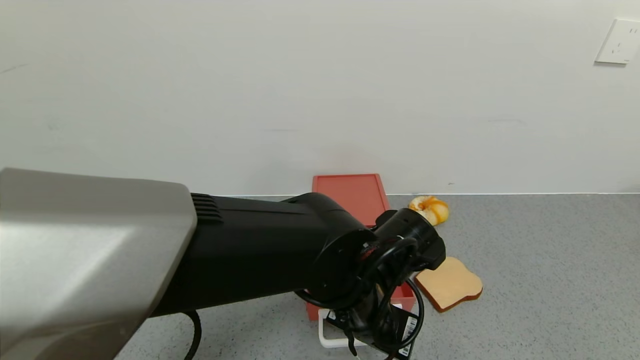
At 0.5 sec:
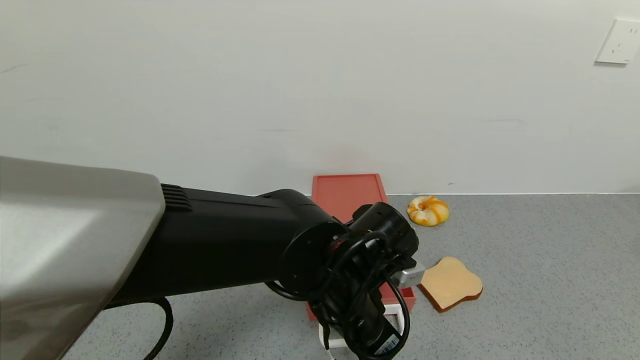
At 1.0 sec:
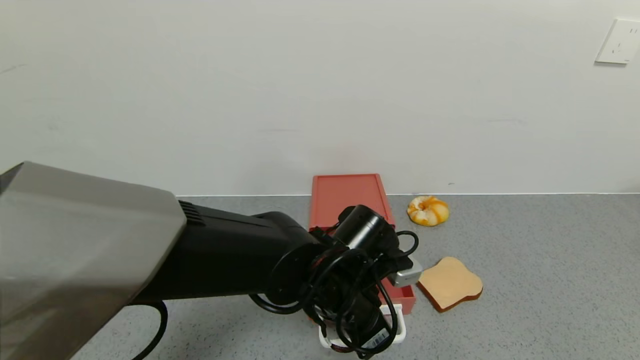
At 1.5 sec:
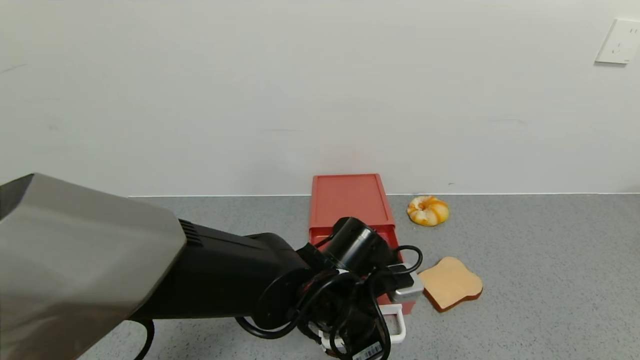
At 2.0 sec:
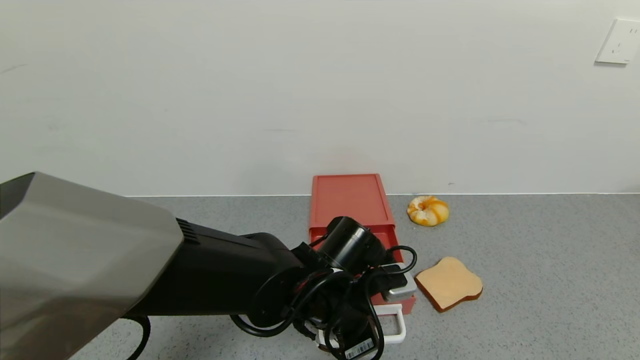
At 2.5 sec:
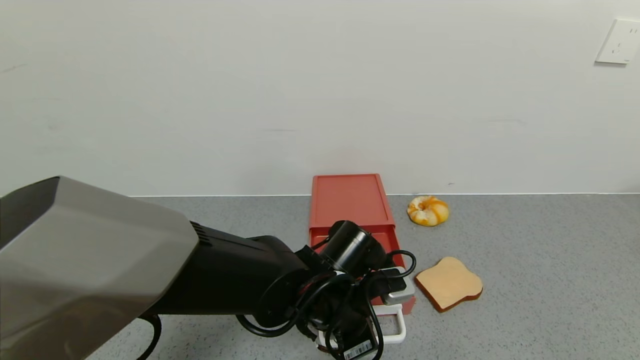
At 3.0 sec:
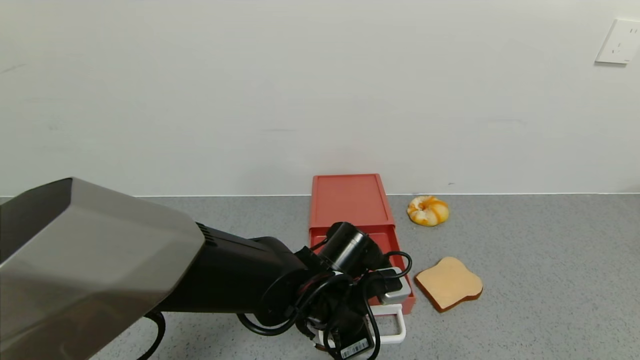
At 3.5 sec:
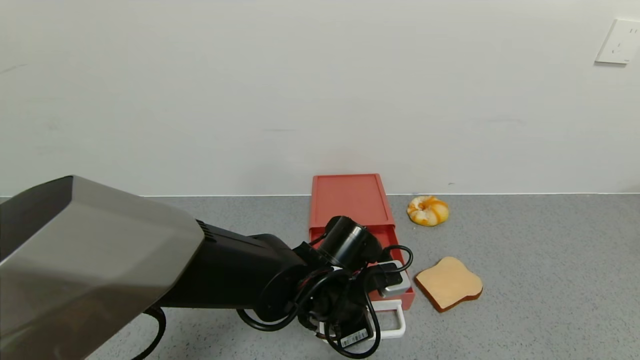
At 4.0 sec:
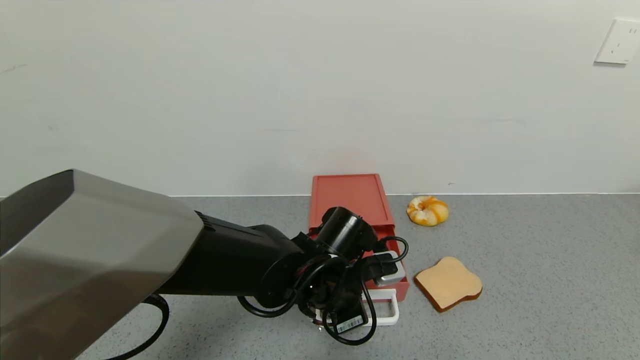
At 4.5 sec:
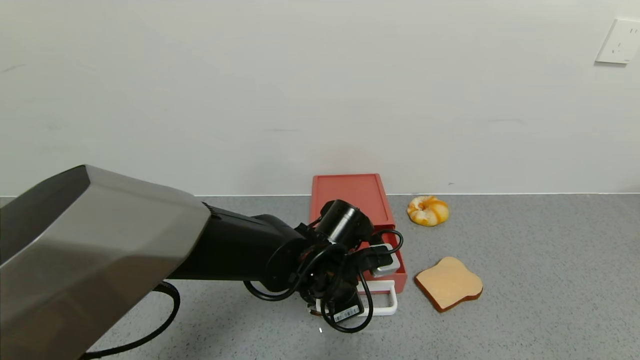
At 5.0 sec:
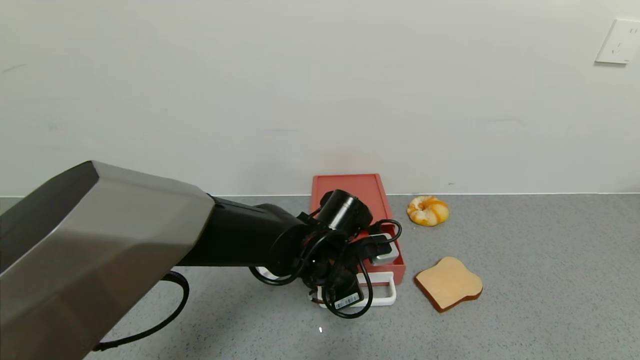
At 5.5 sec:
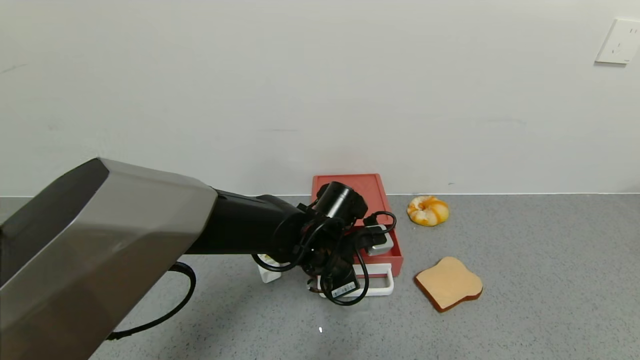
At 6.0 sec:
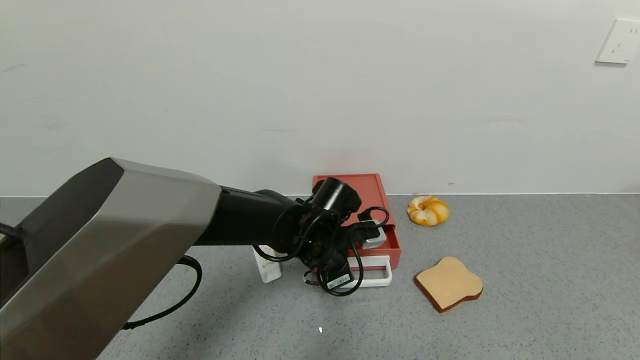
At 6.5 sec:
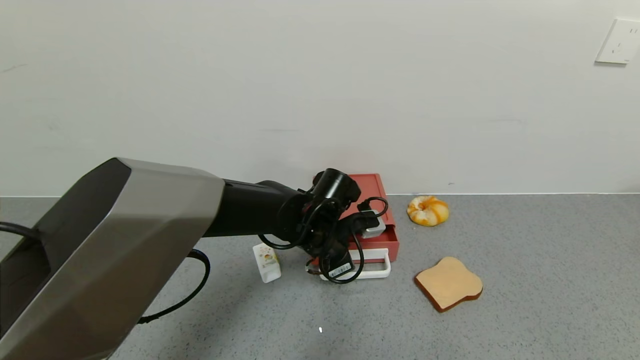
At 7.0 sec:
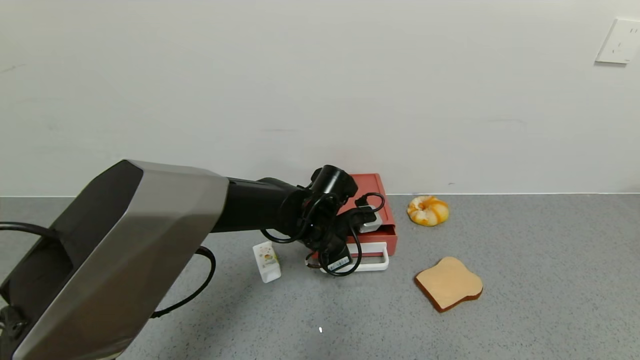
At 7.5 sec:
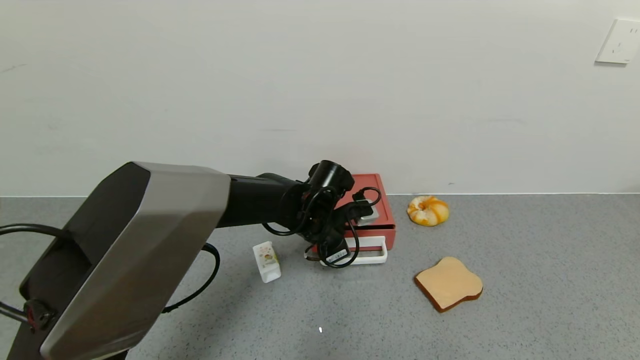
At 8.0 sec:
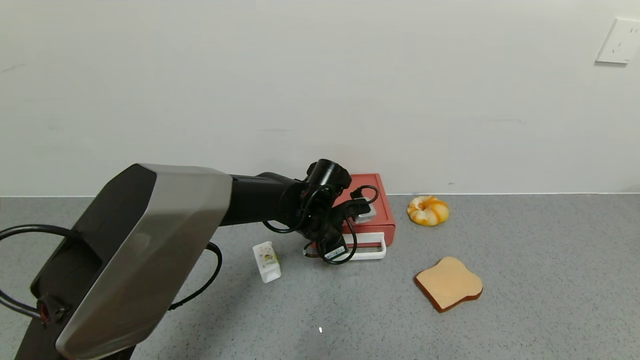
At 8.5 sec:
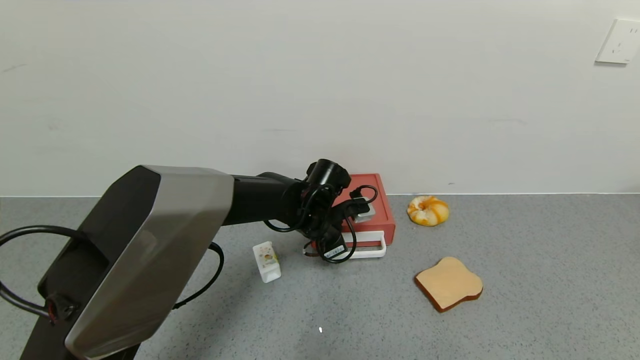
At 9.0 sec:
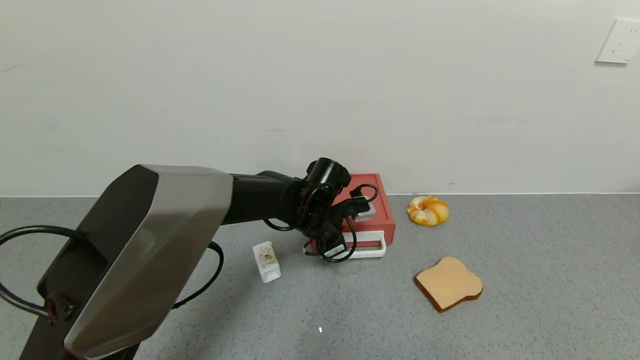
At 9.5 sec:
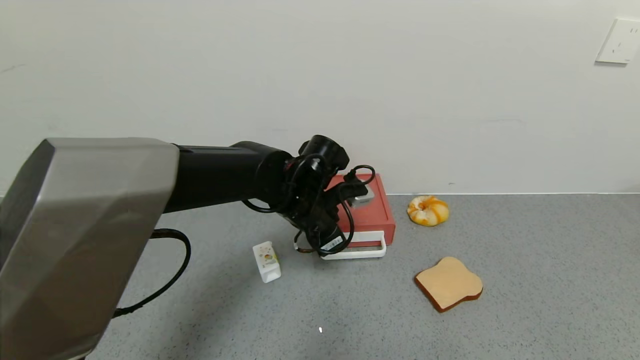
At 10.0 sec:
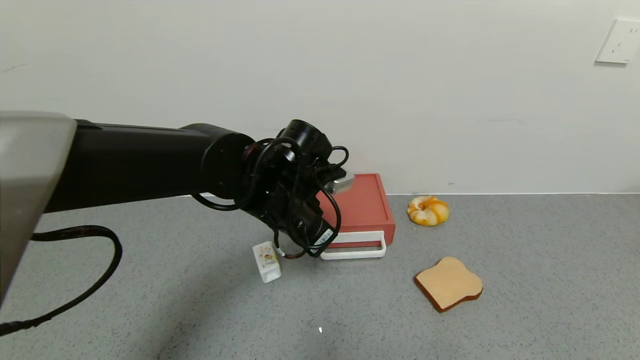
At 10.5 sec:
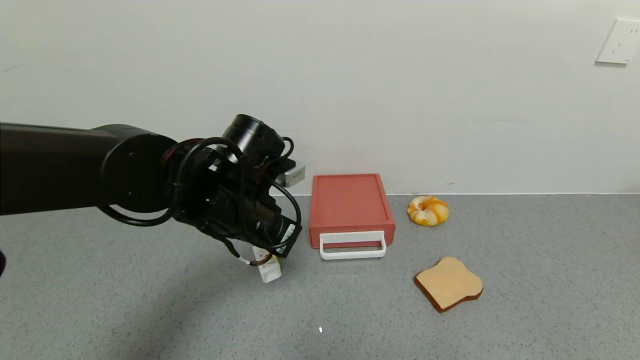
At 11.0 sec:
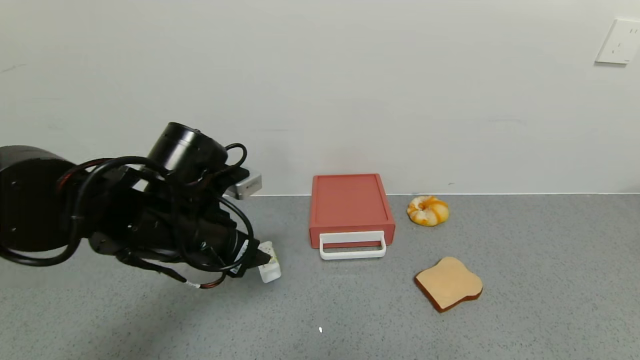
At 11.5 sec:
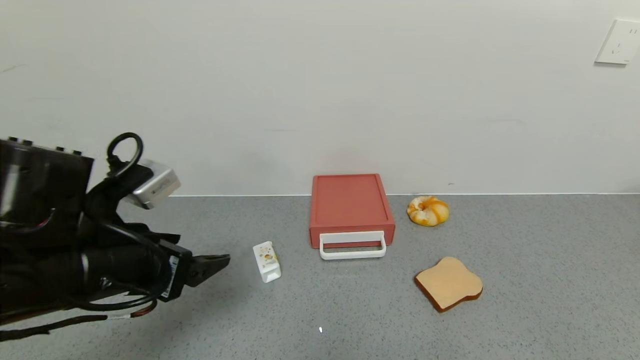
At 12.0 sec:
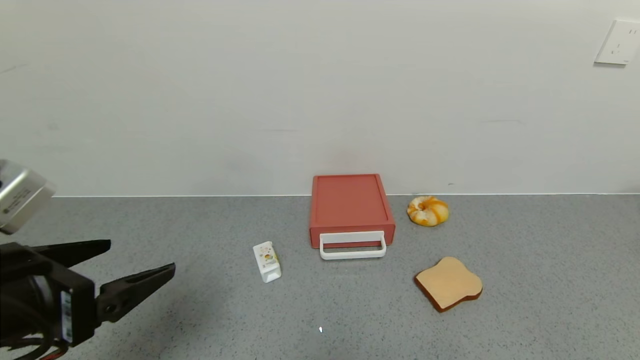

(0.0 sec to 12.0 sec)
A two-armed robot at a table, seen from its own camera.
Task of the whole recording: use the gripper to open the drawer and close the red drawer.
Step, 0.0 sec - 9.5 sec: Close the red drawer with the left gripper.
0.0 sec - 2.0 sec: The left gripper changes place by some 5 cm.
2.0 sec - 4.0 sec: The grippers stay close to where they were, moving slightly.
4.0 sec - 6.0 sec: The left gripper travels forward by roughly 5 cm.
6.0 sec - 8.0 sec: The left gripper goes about 5 cm forward.
8.0 sec - 10.0 sec: The left gripper is displaced upward and backward by roughly 10 cm.
10.0 sec - 12.0 sec: The left gripper travels backward and to the left by about 25 cm, and opens.

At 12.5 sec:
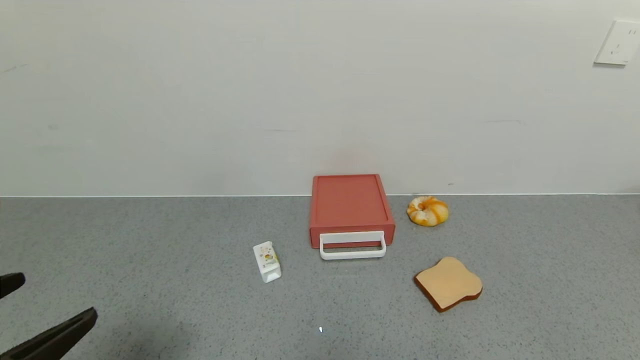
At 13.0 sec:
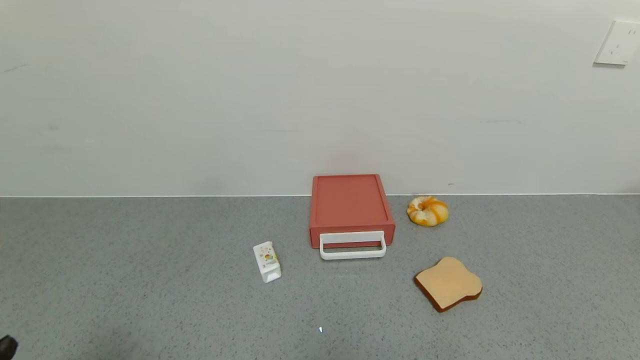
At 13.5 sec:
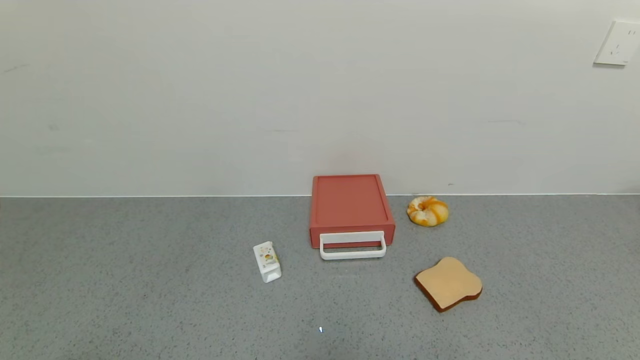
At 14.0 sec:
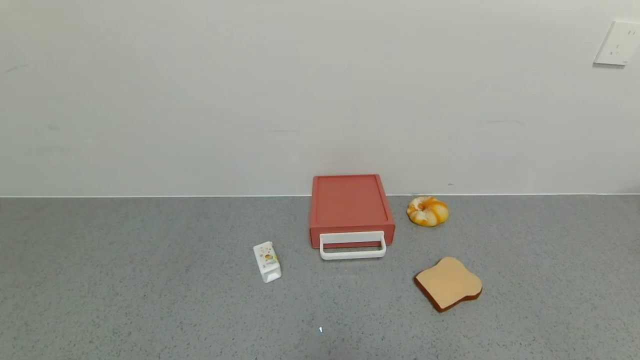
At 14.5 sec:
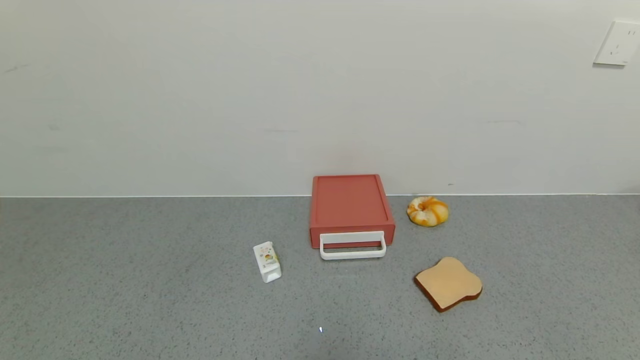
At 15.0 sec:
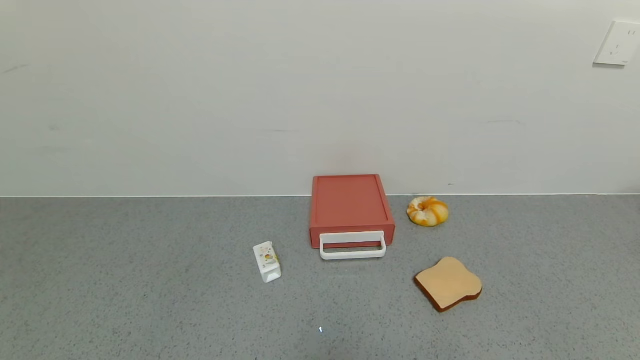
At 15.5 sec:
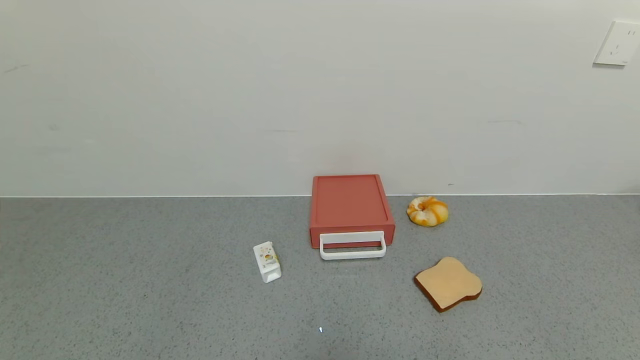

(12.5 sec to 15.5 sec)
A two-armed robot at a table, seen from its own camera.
Task of the whole recording: use the gripper to open the drawer and close the red drawer.
12.5 sec - 14.0 sec: The left gripper shifts roughly 10 cm backward.

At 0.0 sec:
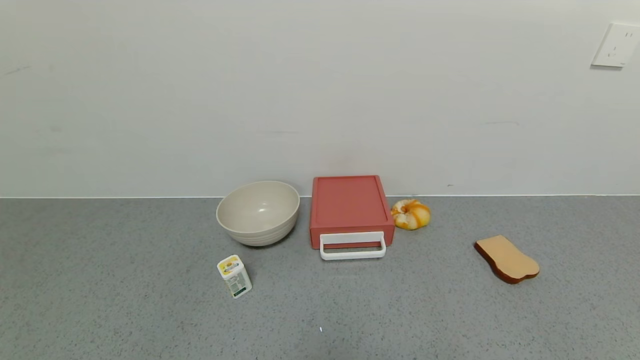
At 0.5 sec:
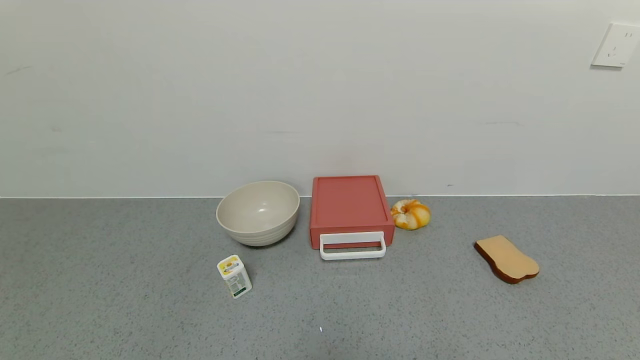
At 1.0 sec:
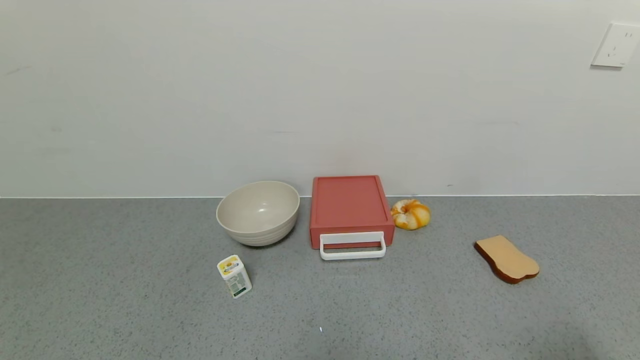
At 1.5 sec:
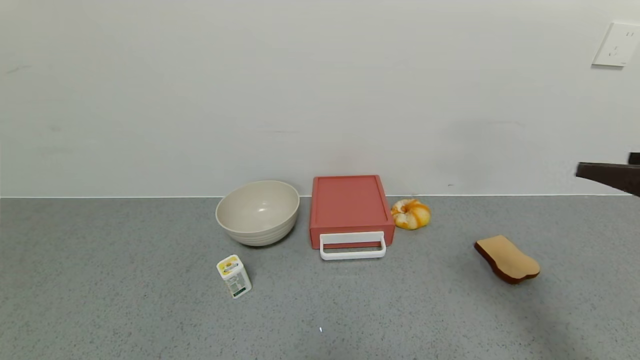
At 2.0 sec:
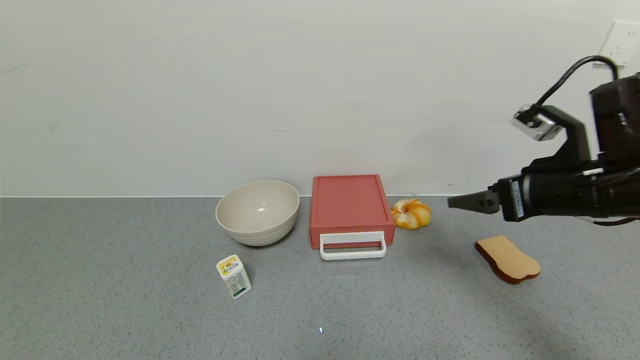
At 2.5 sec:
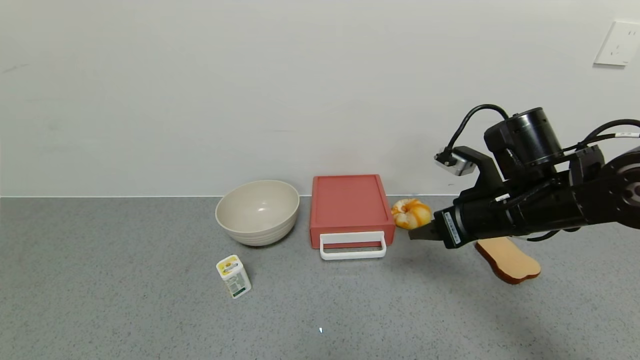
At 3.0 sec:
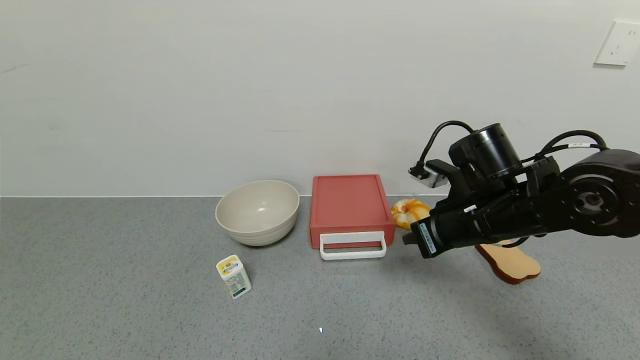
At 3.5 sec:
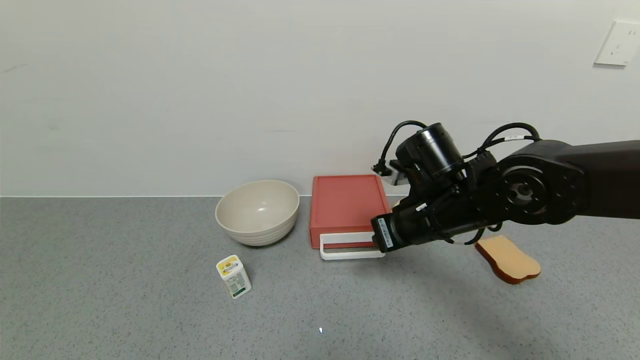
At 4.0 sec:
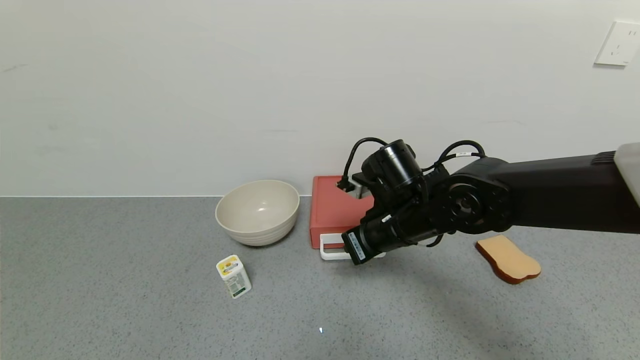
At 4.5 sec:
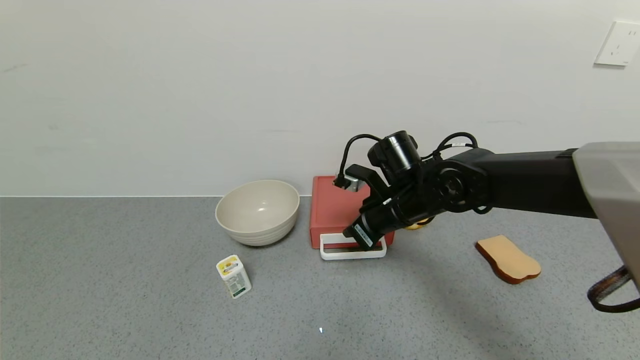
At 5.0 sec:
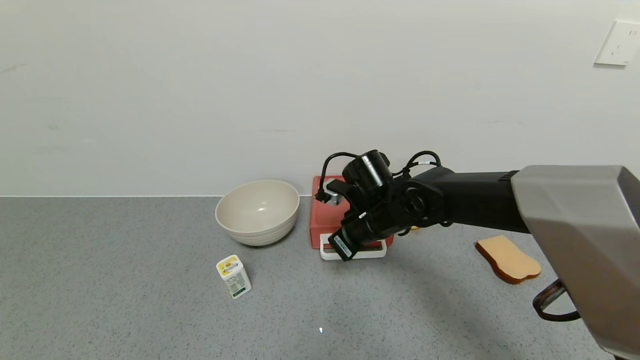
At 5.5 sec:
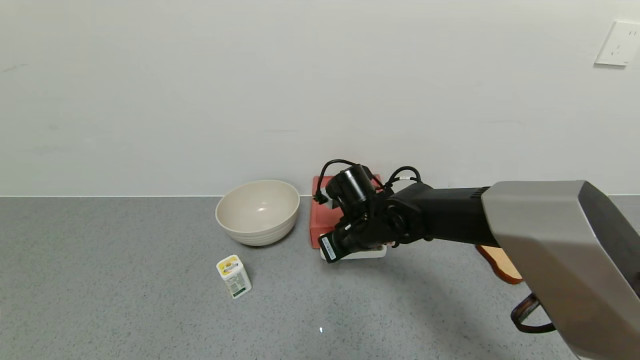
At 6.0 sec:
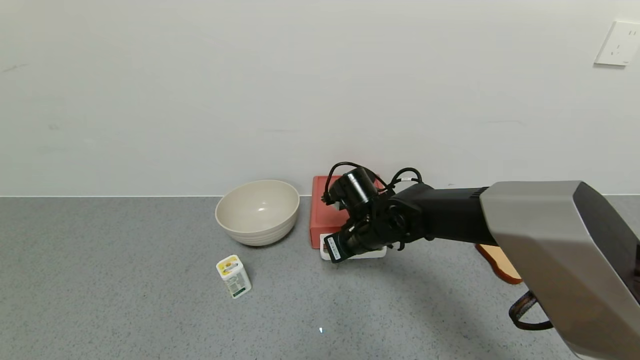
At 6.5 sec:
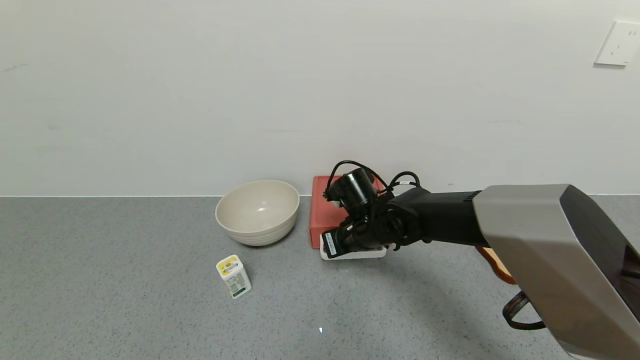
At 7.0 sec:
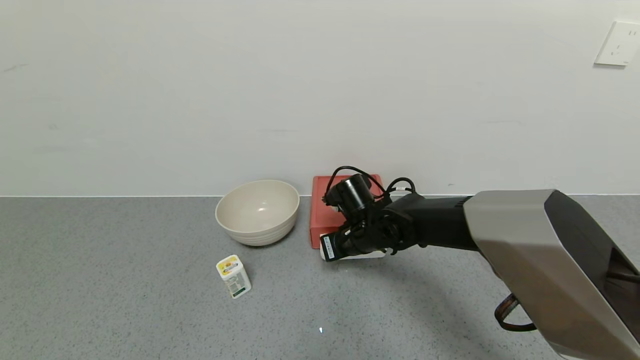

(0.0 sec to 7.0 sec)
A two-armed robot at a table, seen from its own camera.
Task of the whole recording: use the gripper to open the drawer and close the red drawer.
0.0 sec - 2.0 sec: The right gripper shifts approximately 35 cm forward and upward.
2.0 sec - 3.5 sec: The right gripper travels to the left and downward by some 15 cm, and closes its fingers.
3.5 sec - 5.0 sec: The right gripper shifts approximately 10 cm forward, to the left and downward.
5.0 sec - 7.0 sec: The right gripper shifts by roughly 5 cm.
